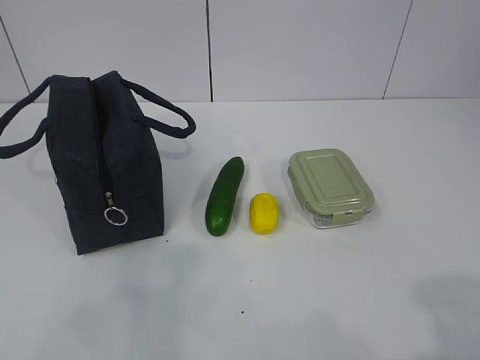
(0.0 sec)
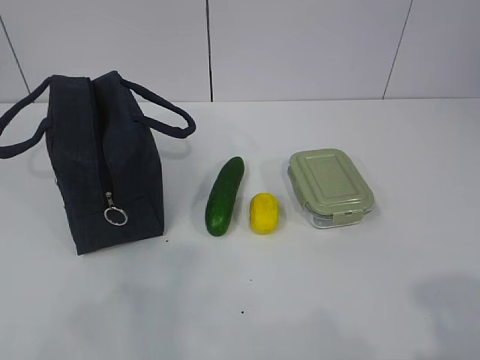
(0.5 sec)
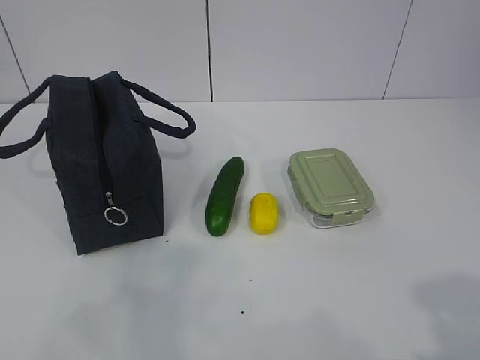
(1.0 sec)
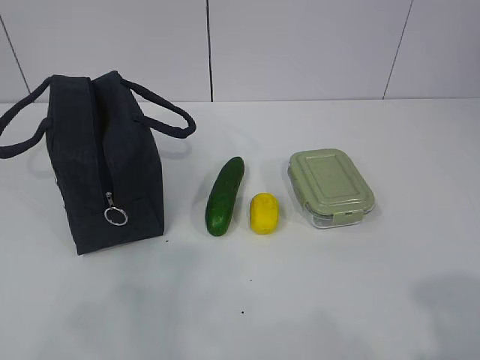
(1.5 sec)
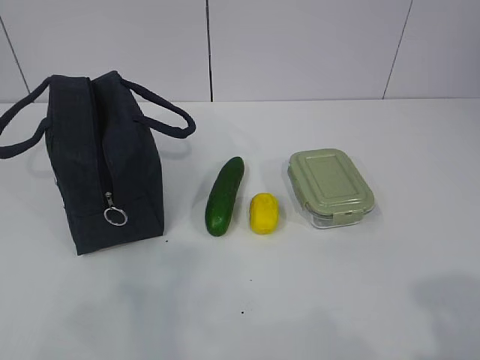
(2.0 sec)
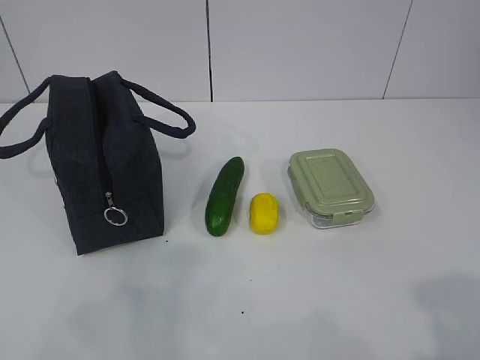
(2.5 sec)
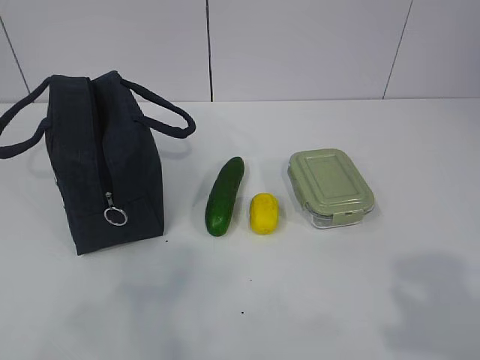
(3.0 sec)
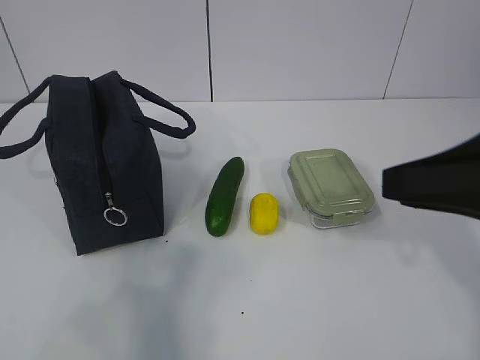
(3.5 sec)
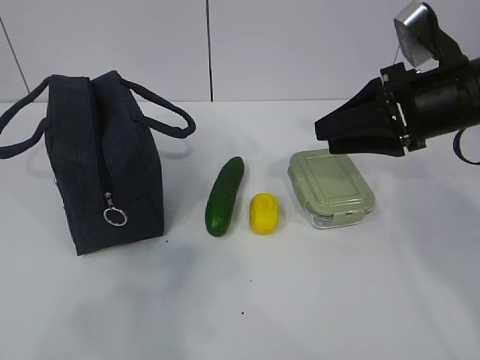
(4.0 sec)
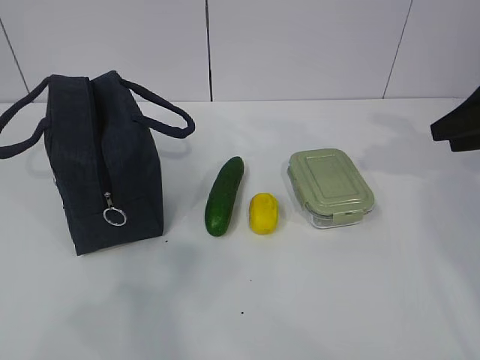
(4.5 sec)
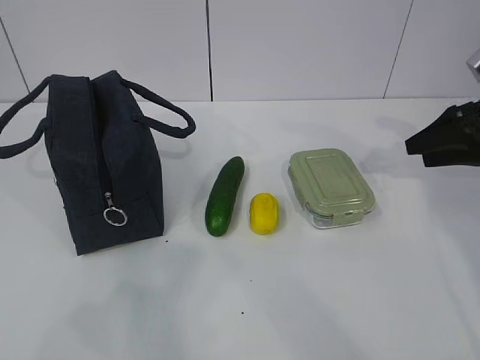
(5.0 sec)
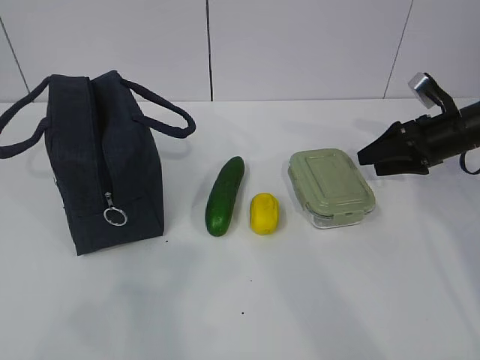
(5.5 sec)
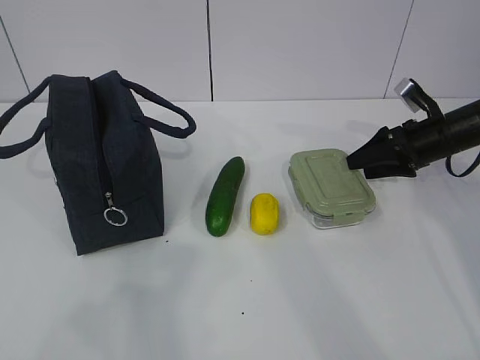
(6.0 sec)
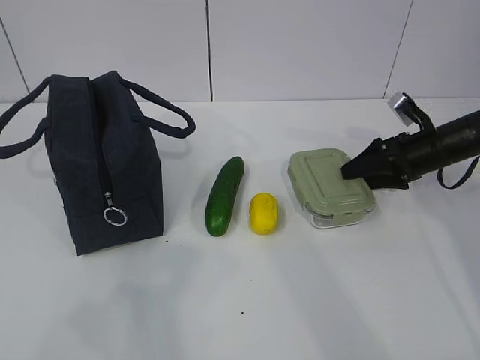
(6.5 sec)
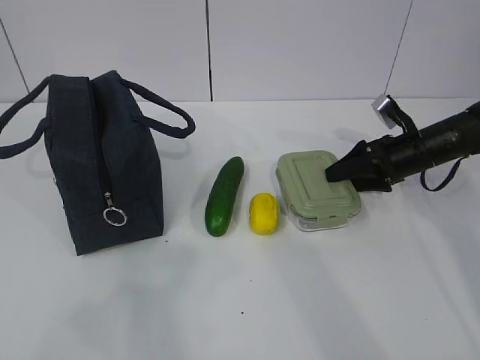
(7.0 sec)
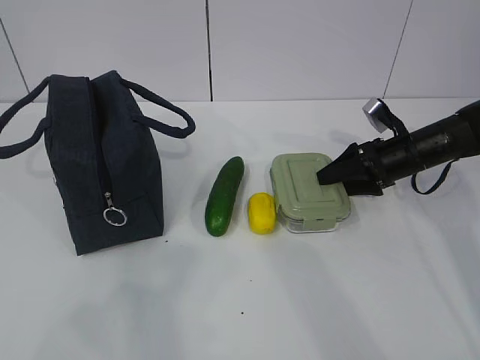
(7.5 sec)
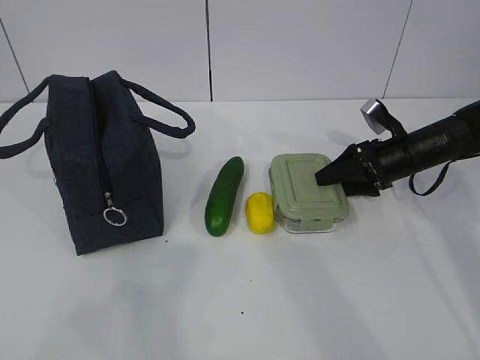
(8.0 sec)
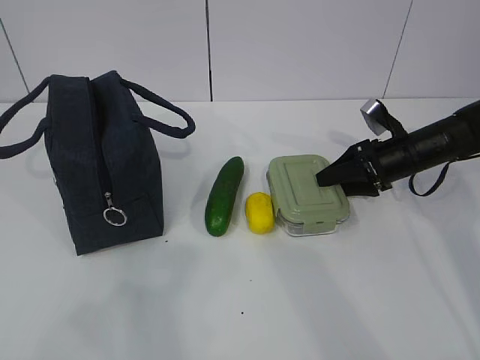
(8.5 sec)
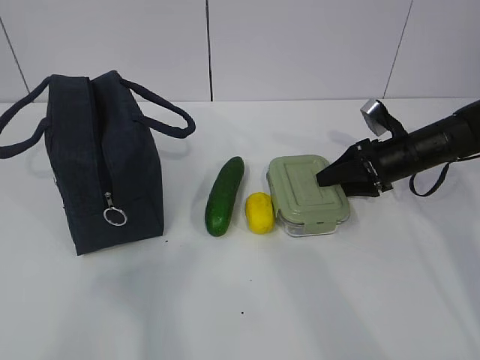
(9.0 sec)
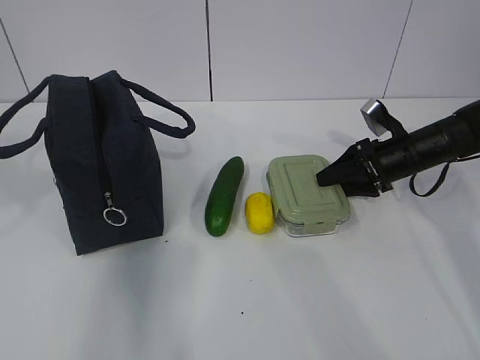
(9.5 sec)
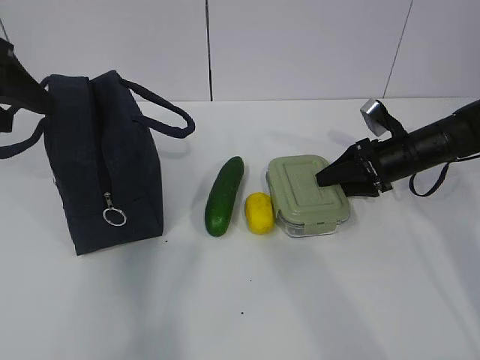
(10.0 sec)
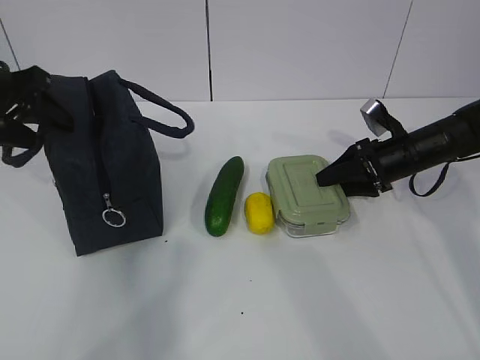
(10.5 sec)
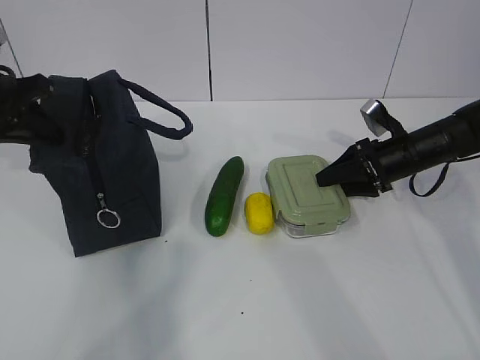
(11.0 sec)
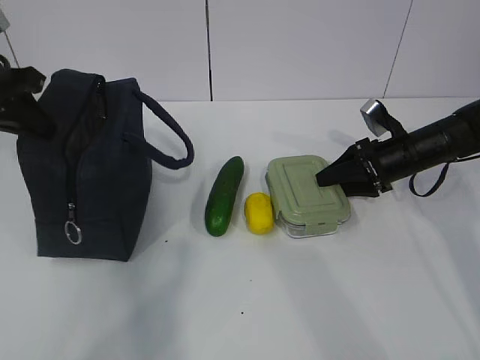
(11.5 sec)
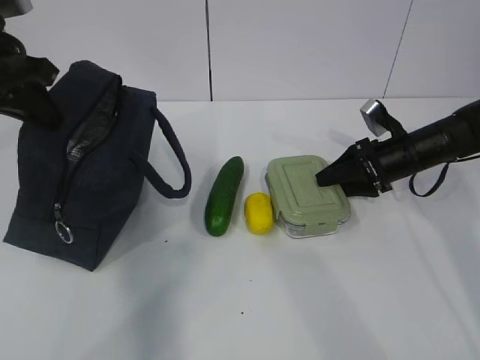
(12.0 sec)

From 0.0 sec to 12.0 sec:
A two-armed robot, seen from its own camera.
Step, from 0.0 sec to 10.5 sec: Grab the lunch box with your right hand.
From 2.0 sec to 4.0 sec: The right gripper travels forward by approximately 35 cm.
From 4.0 sec to 6.0 sec: The right gripper moves downward, forward and to the right, roughly 20 cm, and opens its fingers.
From 6.0 sec to 8.0 sec: The right gripper moves approximately 5 cm.
From 8.0 sec to 10.0 sec: The left gripper is displaced forward by approximately 30 cm, and opens.
From 10.0 sec to 12.0 sec: The left gripper shifts by roughly 5 cm, and closes its fingers.

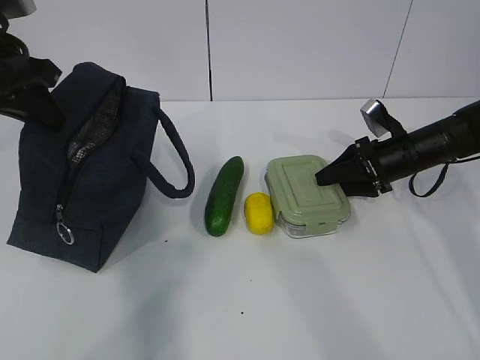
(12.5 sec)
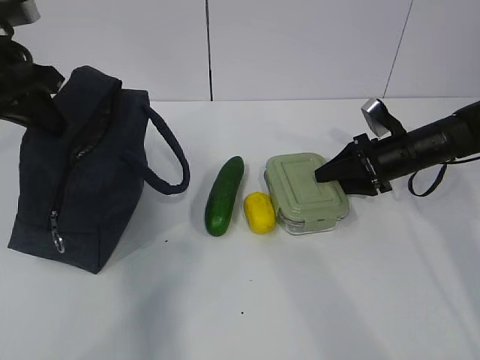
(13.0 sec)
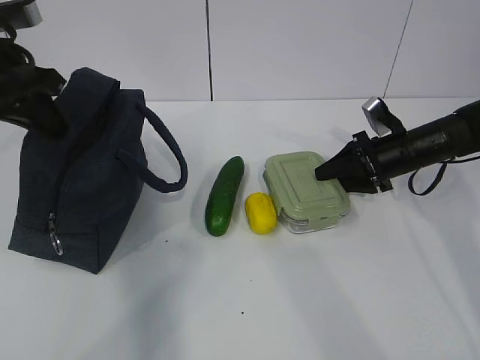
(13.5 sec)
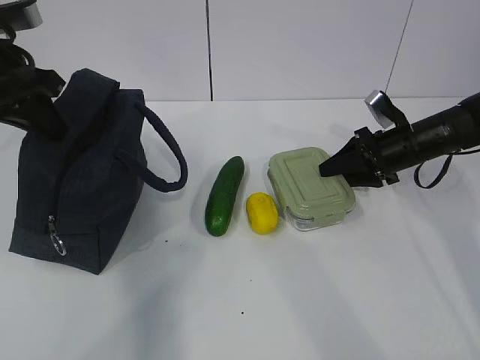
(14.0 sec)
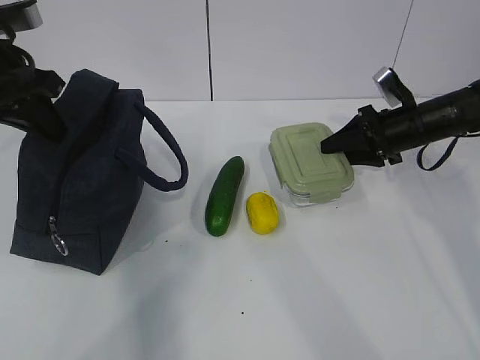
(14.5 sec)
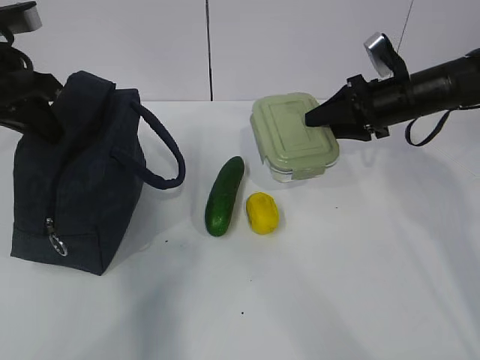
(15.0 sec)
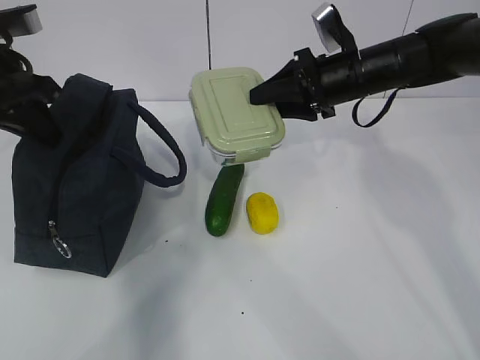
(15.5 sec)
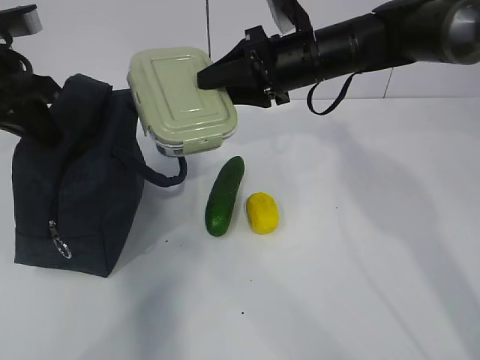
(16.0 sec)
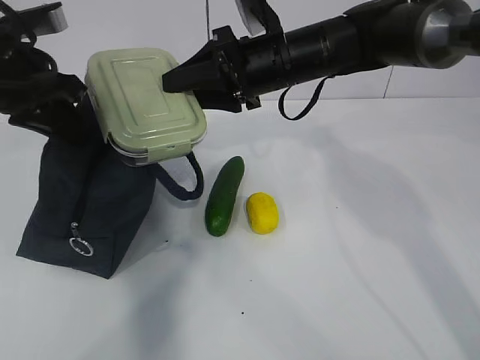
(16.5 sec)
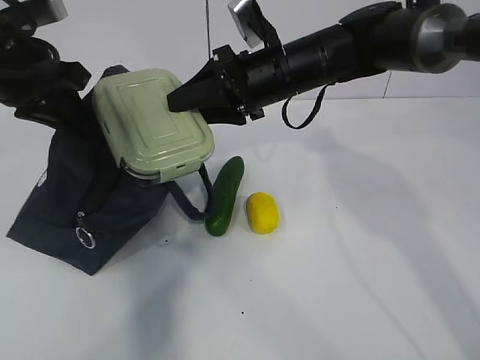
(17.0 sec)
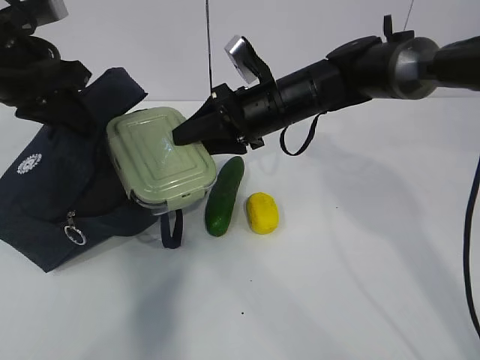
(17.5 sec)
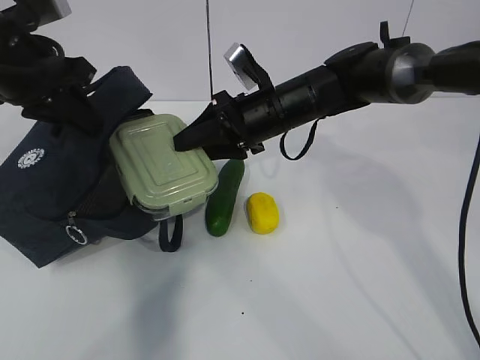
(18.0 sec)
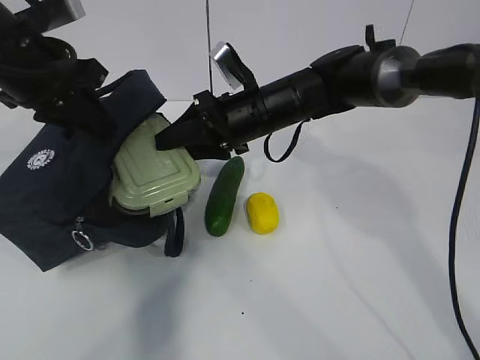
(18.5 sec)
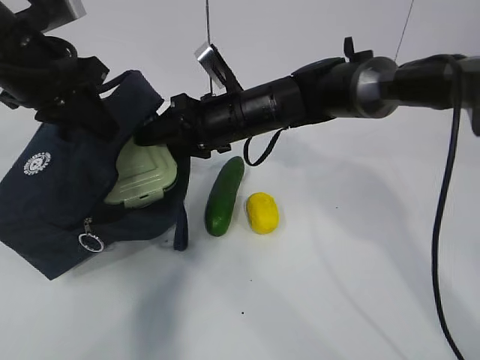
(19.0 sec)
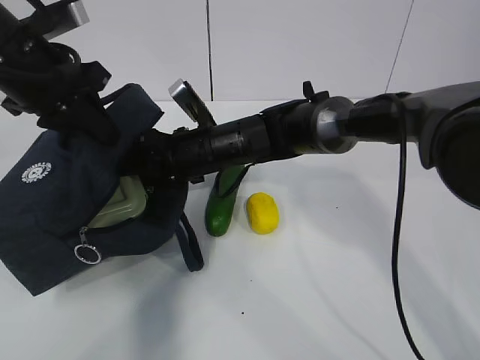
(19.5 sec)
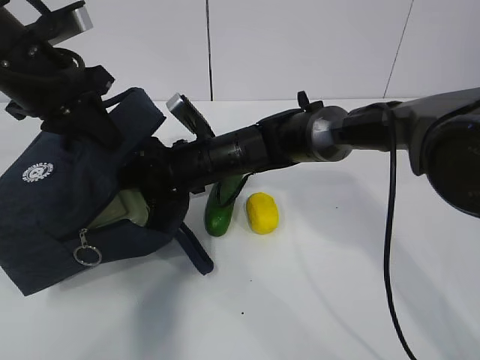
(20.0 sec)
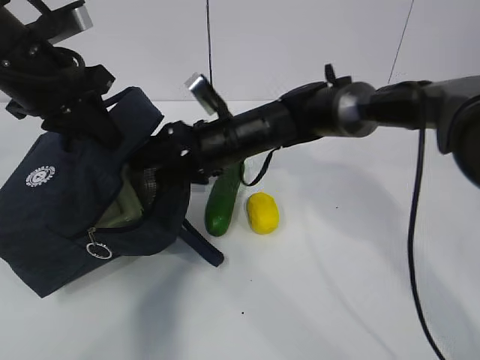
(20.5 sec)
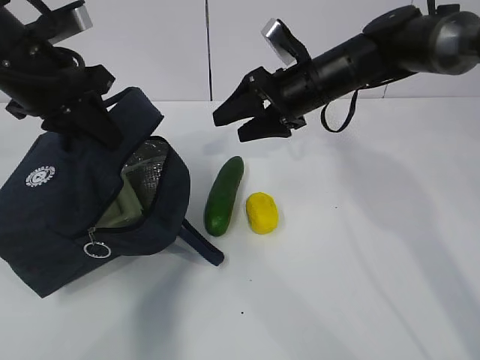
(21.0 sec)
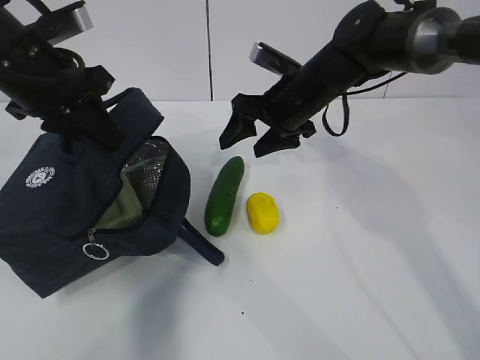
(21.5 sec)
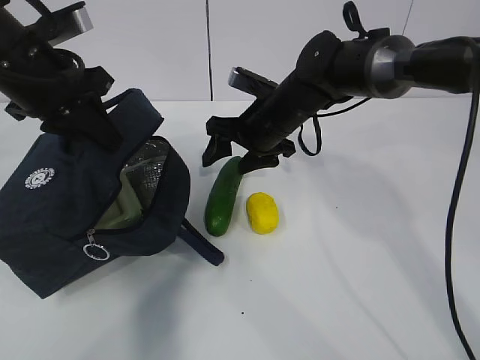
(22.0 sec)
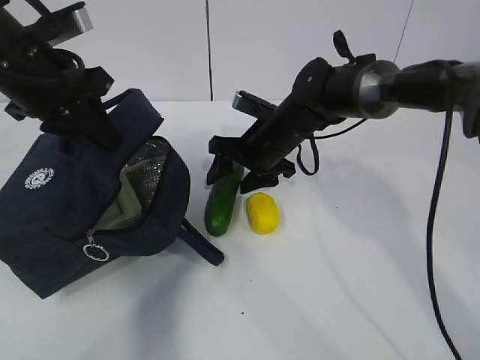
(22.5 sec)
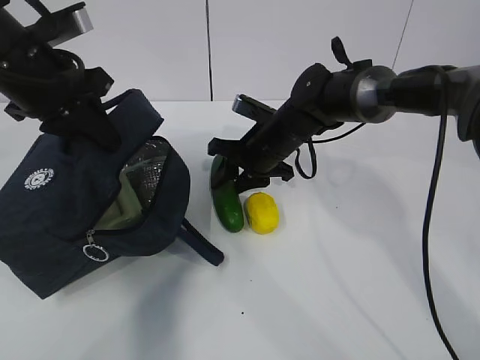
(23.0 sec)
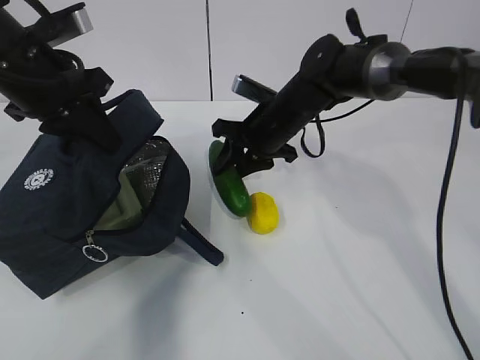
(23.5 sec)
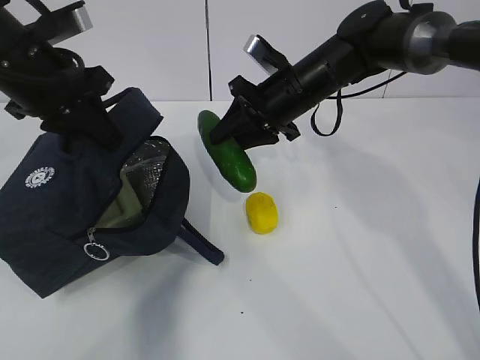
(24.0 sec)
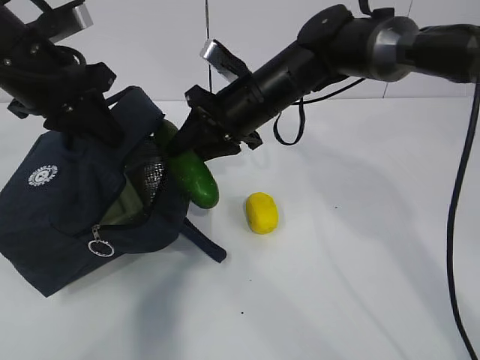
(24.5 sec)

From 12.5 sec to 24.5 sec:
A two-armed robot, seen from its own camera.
Step, from 14.0 sec to 16.5 sec: Place it into the bag with your right hand.
Step, from 17.0 sec to 19.0 sec: Grab the cucumber with your right hand.
Step, from 19.5 sec to 21.0 sec: Place it into the bag with your right hand.
Step, from 21.5 sec to 23.5 sec: Grab the lemon with your right hand.
From 12.5 sec to 14.5 sec: The grippers move only a little.
From 14.5 sec to 16.5 sec: The right gripper travels to the left and upward by approximately 25 cm.
From 16.5 sec to 18.5 sec: The right gripper is displaced downward by roughly 5 cm.
From 18.5 sec to 20.5 sec: The right gripper opens up.
From 22.5 sec to 24.5 sec: The right gripper heads upward, covering roughly 10 cm, and closes its fingers.

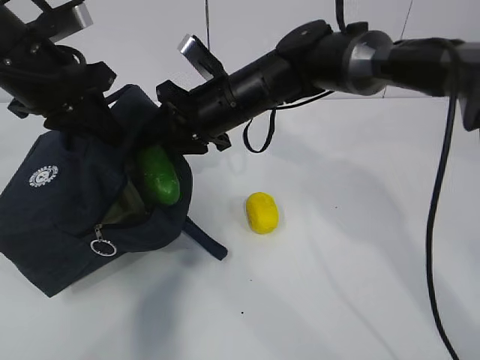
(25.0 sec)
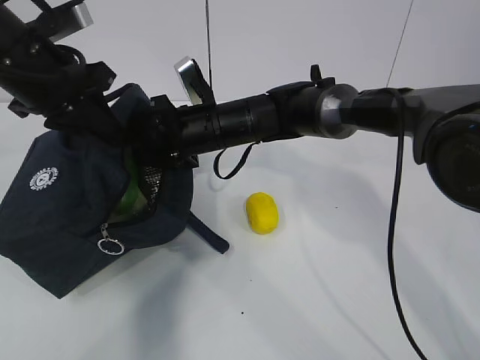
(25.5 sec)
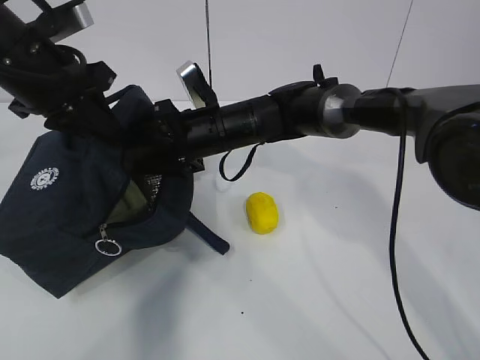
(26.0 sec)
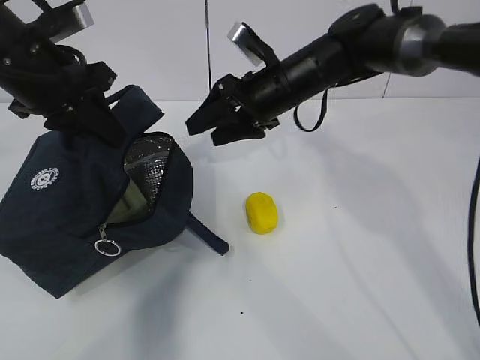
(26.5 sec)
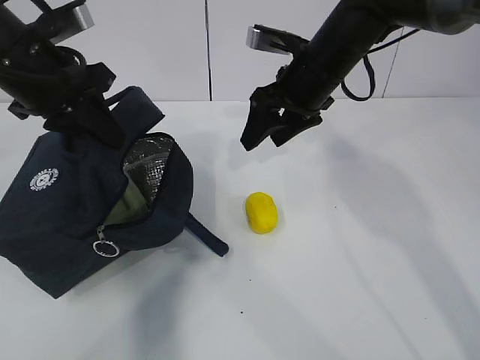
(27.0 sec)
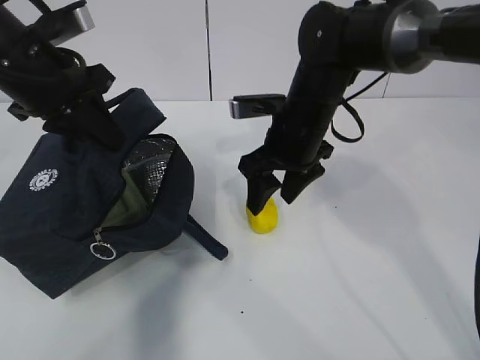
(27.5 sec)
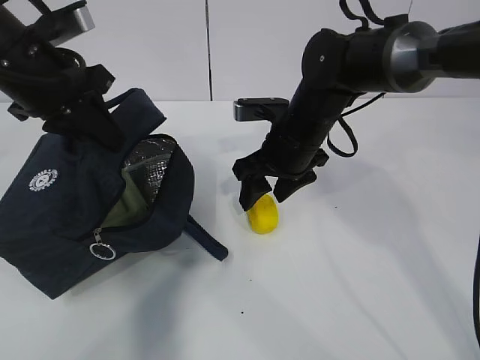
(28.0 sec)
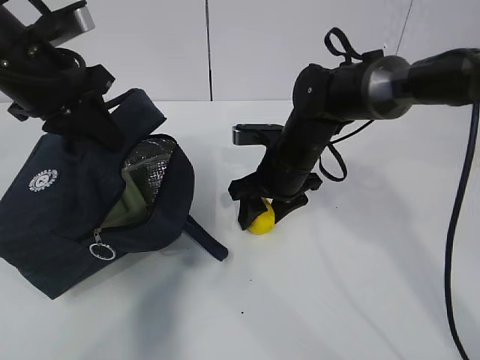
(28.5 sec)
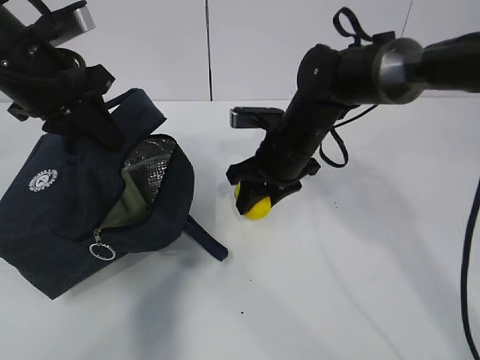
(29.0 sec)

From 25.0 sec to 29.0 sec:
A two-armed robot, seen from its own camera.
Step, from 25.5 sec to 26.5 sec: Grab the lunch bag with your right hand.
Step, from 27.0 sec to 28.0 sec: Move the lunch bag to the right.
From 25.0 sec to 27.0 sec: The right gripper shifts about 10 cm to the right, and opens its fingers.
From 27.0 sec to 29.0 sec: The right gripper goes about 10 cm downward, and closes.
